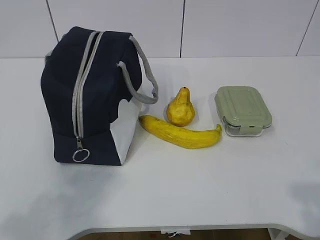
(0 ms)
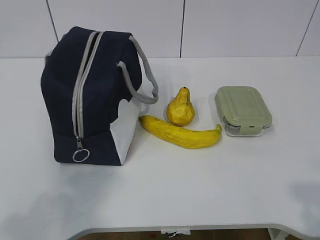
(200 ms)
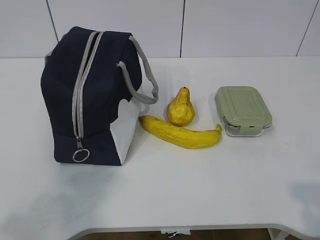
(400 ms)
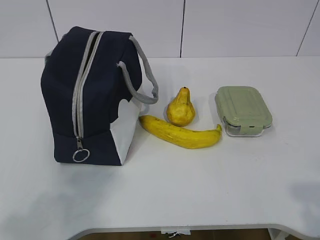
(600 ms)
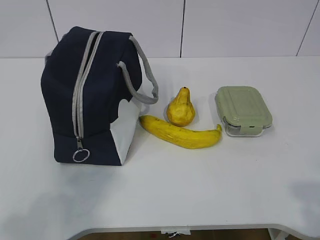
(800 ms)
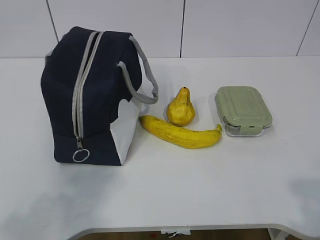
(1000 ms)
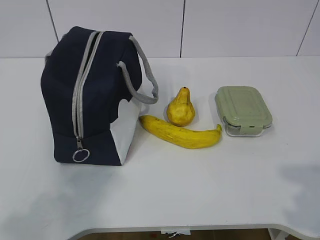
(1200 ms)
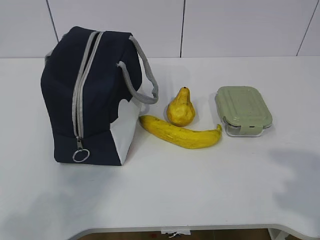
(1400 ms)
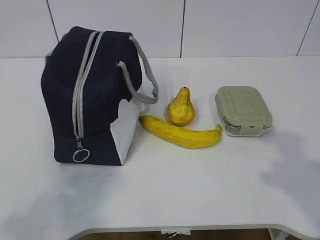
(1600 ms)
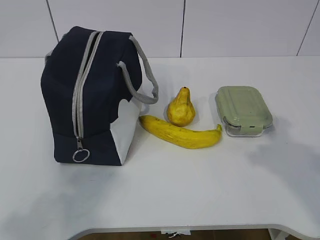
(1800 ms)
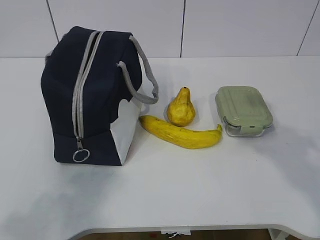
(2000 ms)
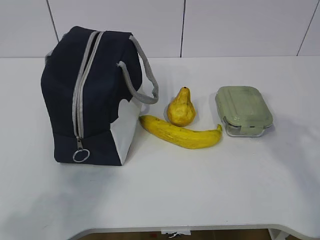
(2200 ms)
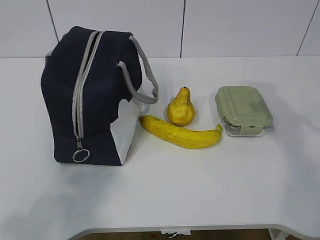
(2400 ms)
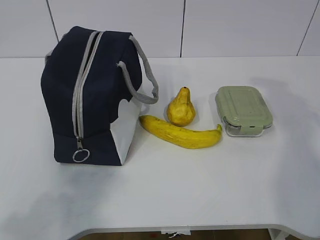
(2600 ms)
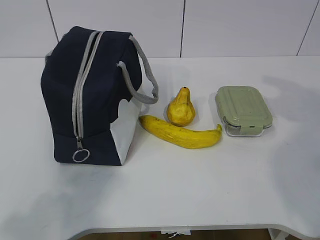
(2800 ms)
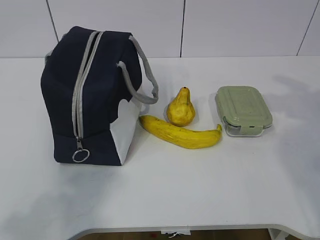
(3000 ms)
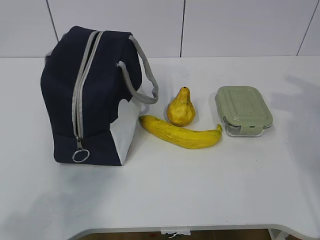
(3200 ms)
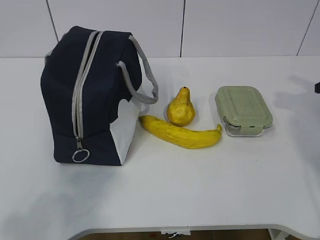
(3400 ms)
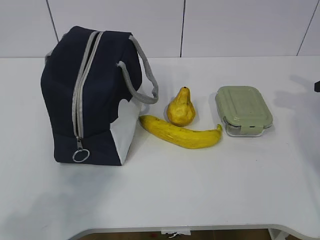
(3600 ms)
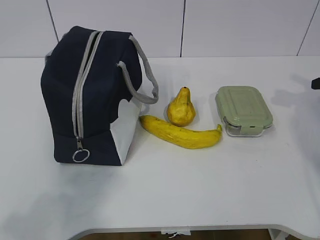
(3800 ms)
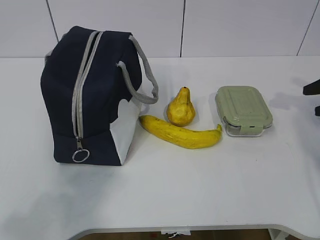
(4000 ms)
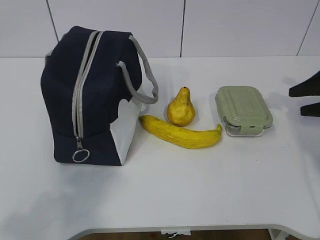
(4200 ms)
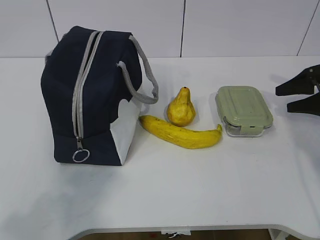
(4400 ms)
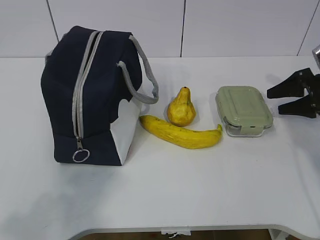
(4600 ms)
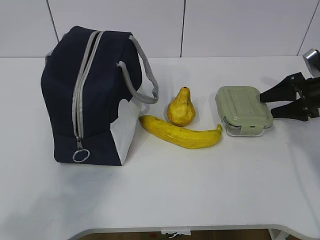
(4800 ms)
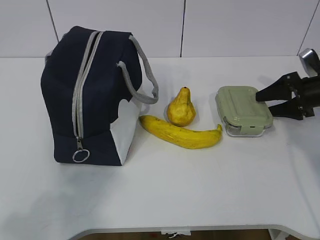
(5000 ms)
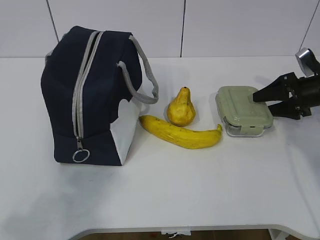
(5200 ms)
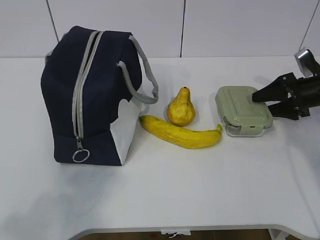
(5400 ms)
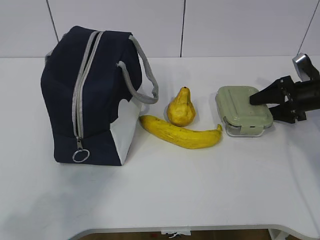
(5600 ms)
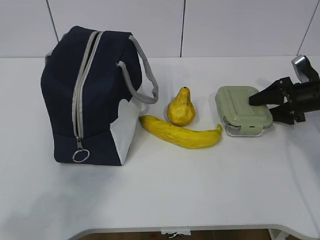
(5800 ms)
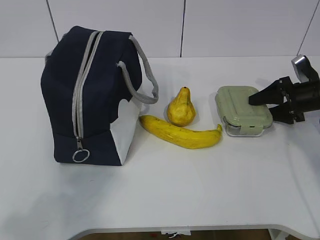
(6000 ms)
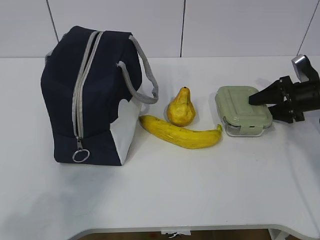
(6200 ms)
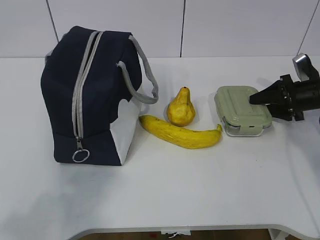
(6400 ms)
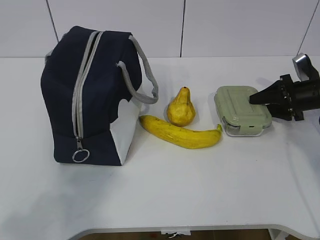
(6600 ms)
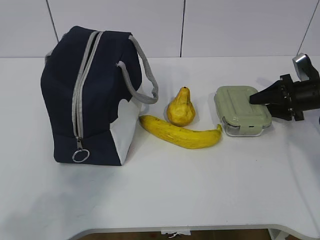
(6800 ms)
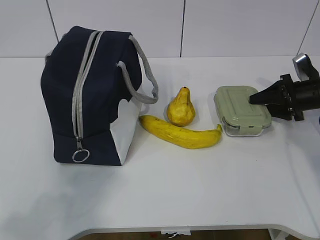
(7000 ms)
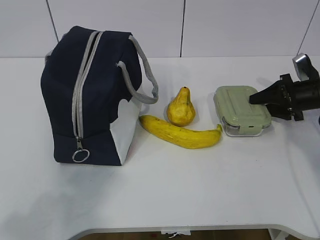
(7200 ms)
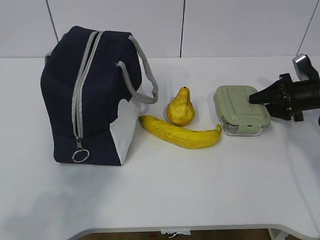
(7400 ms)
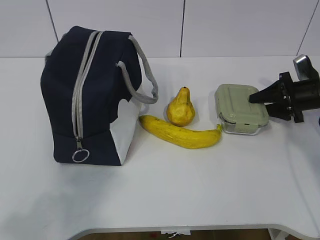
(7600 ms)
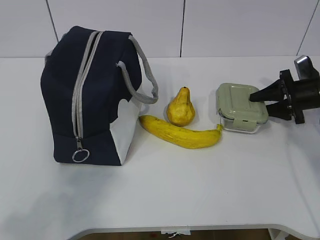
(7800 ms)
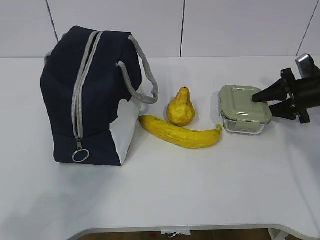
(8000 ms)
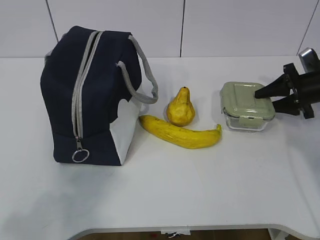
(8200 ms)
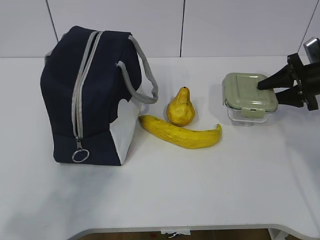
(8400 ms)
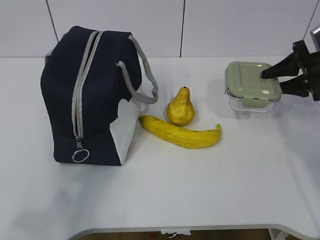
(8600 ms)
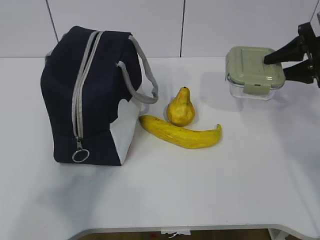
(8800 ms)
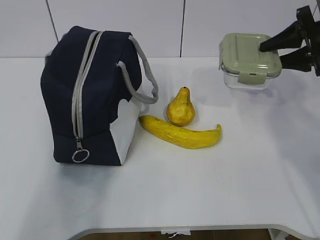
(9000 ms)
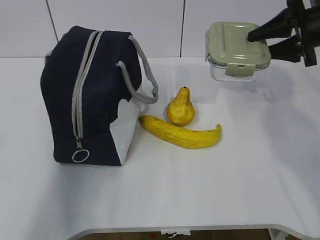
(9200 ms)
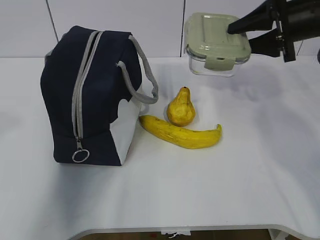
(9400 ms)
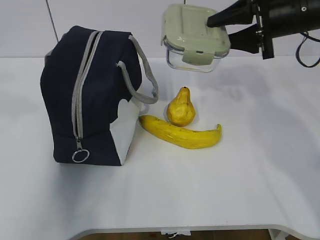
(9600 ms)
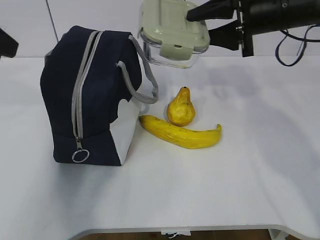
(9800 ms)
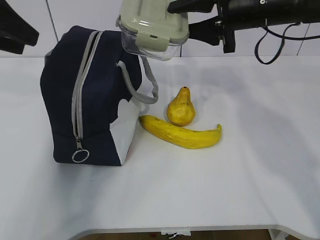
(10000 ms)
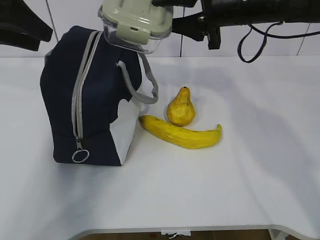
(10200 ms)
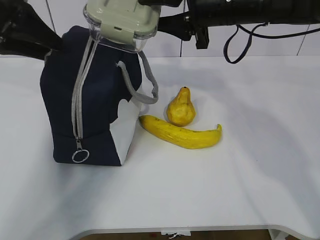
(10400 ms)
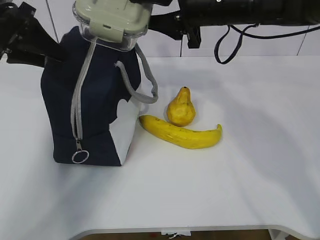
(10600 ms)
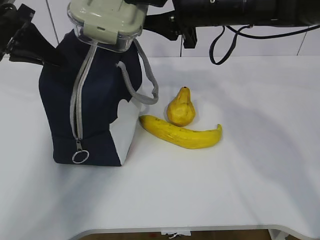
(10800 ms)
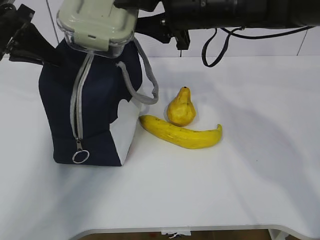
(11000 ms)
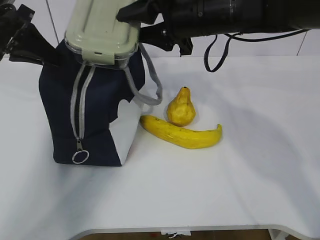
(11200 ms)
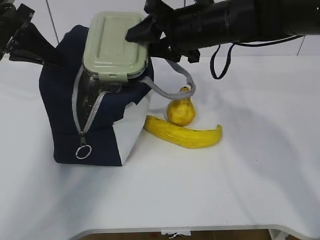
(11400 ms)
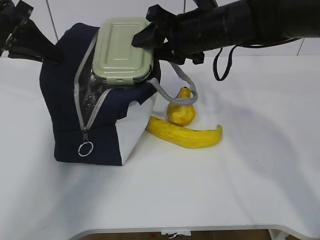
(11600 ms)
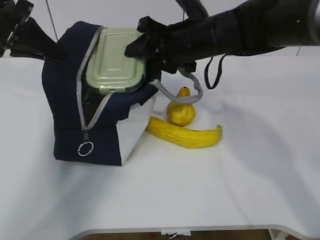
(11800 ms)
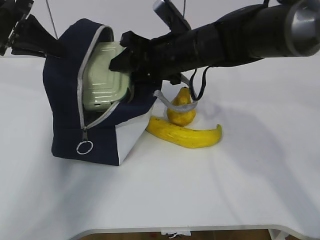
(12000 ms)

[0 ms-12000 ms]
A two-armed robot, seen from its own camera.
Step, 0 ms to 6000 ms: Grab the lunch box with your right hand.
Step, 6200 ms to 9200 ms: Grab the lunch bag with your left hand.
Step, 9400 ms to 11400 ms: Place it into the bag with your right hand.
3000 ms to 4400 ms: The right gripper travels downward and forward by about 15 cm.
4400 ms to 6000 ms: The right gripper shifts by approximately 5 cm.
6000 ms to 7600 ms: There are only small adjustments of the grippers.
7600 ms to 9000 ms: The left gripper goes approximately 10 cm upward and forward; the right gripper shifts about 15 cm upward.
9000 ms to 10400 ms: The left gripper shifts roughly 30 cm forward. Meanwhile the right gripper heads to the left, covering some 20 cm.
10400 ms to 12000 ms: The left gripper closes. Meanwhile the right gripper goes about 10 cm downward and to the left.

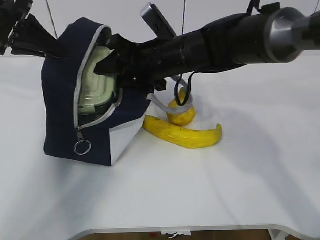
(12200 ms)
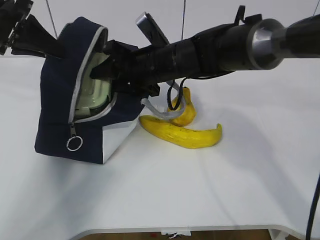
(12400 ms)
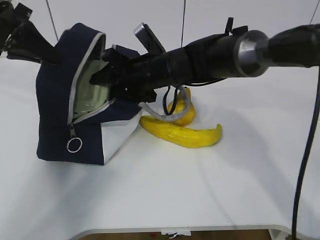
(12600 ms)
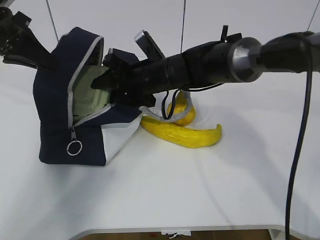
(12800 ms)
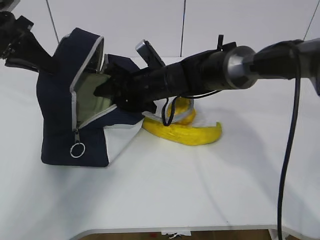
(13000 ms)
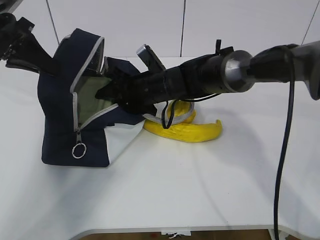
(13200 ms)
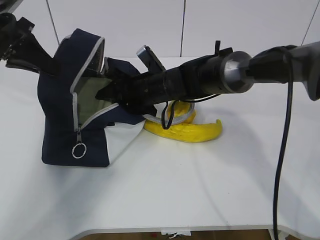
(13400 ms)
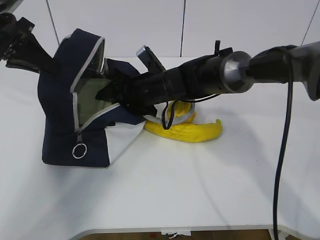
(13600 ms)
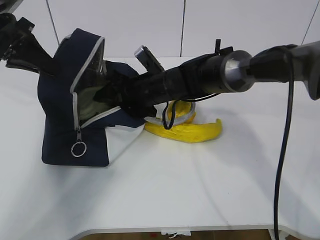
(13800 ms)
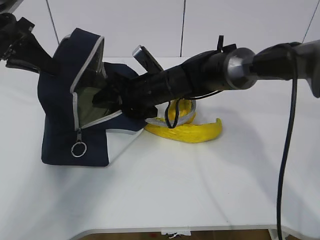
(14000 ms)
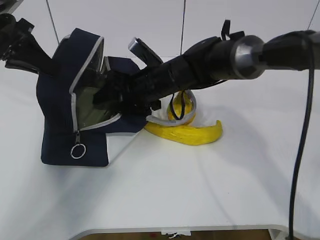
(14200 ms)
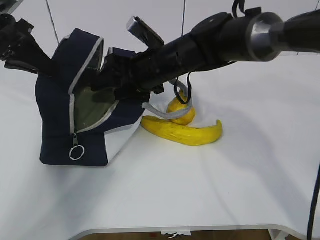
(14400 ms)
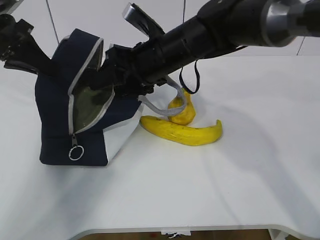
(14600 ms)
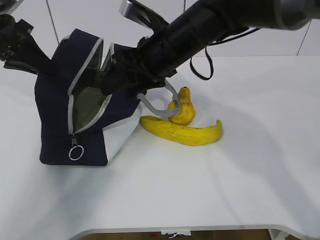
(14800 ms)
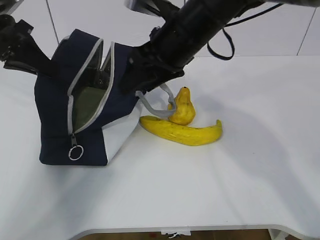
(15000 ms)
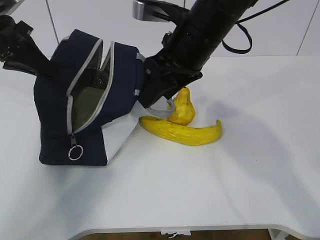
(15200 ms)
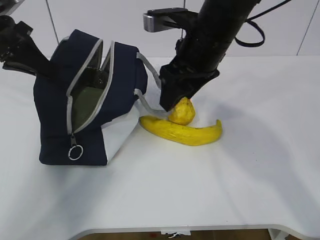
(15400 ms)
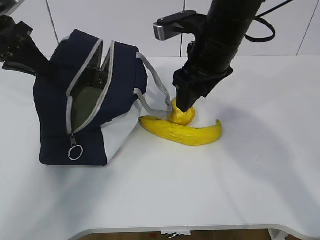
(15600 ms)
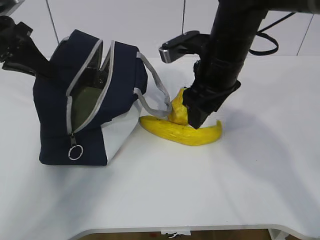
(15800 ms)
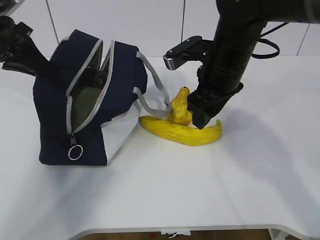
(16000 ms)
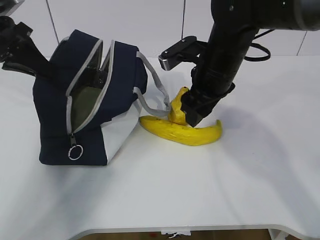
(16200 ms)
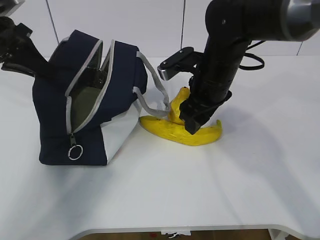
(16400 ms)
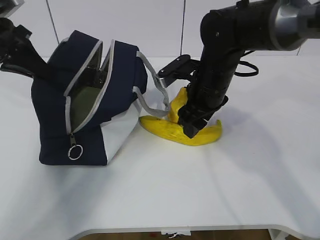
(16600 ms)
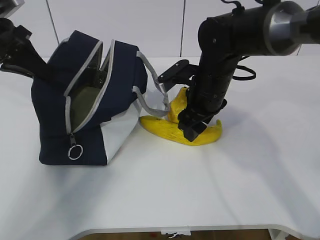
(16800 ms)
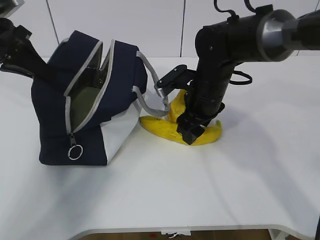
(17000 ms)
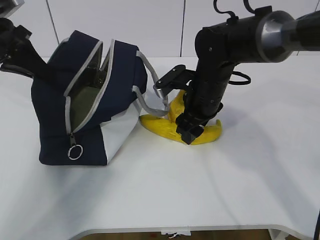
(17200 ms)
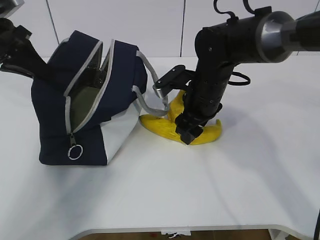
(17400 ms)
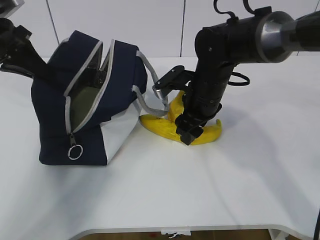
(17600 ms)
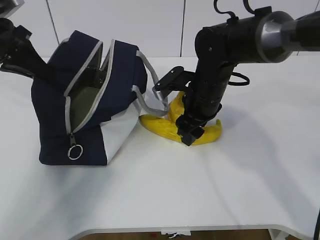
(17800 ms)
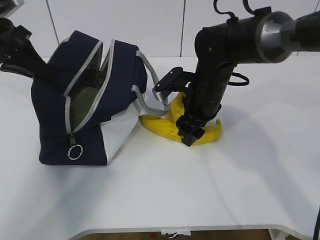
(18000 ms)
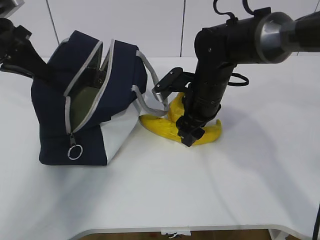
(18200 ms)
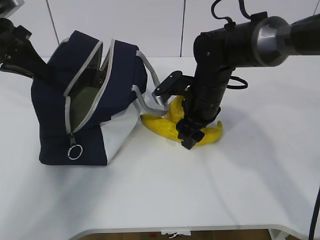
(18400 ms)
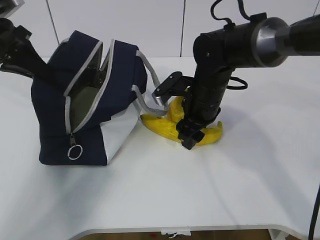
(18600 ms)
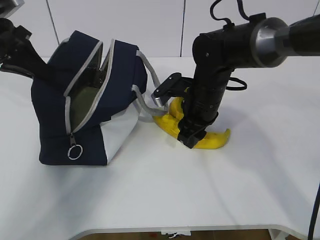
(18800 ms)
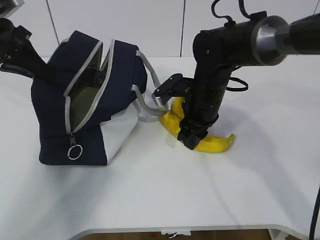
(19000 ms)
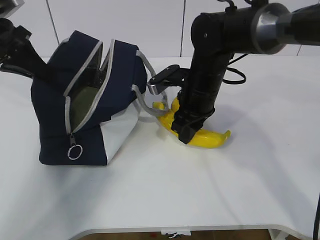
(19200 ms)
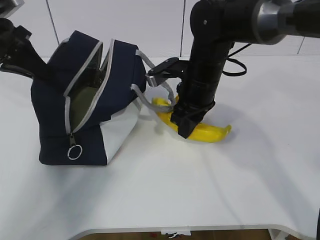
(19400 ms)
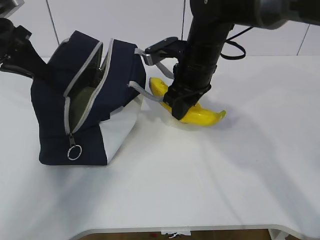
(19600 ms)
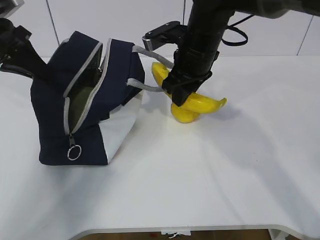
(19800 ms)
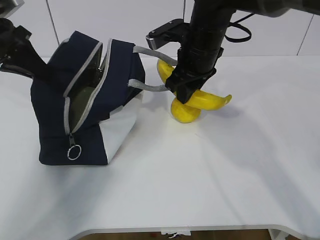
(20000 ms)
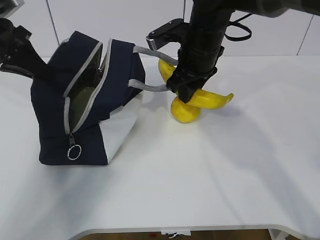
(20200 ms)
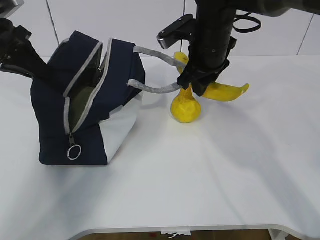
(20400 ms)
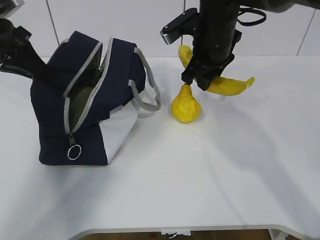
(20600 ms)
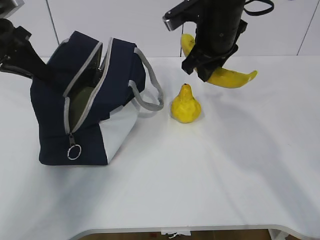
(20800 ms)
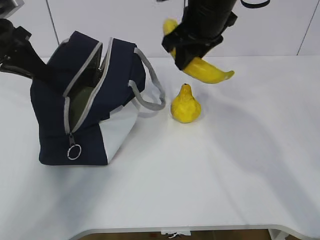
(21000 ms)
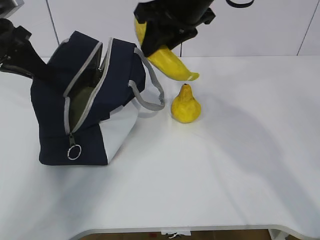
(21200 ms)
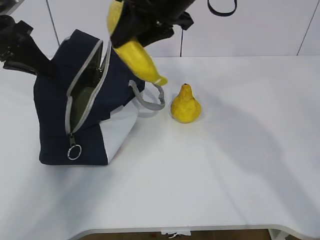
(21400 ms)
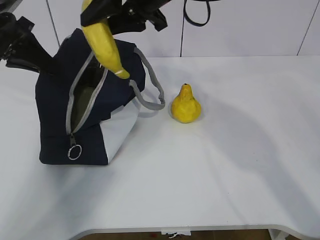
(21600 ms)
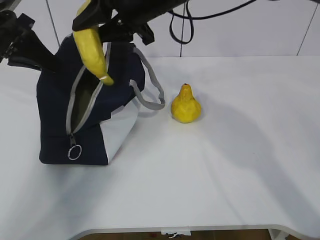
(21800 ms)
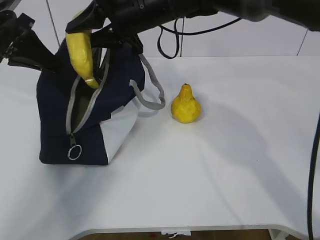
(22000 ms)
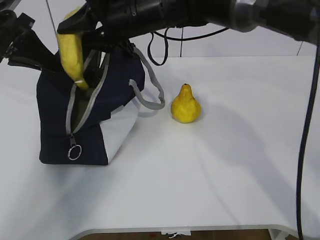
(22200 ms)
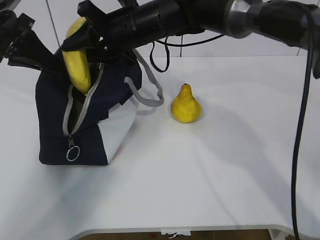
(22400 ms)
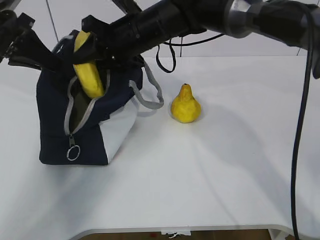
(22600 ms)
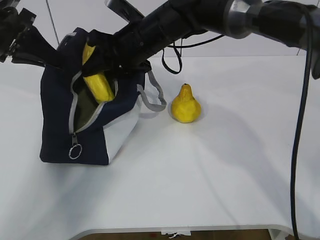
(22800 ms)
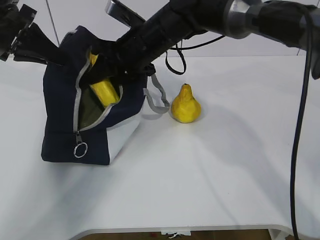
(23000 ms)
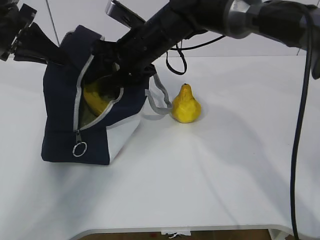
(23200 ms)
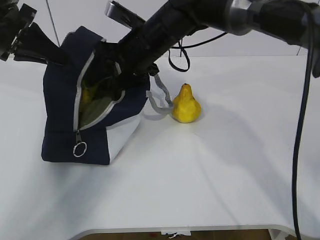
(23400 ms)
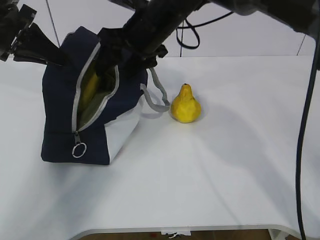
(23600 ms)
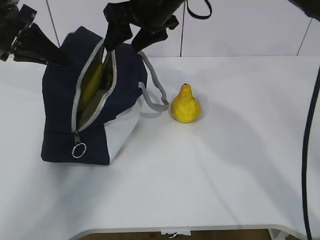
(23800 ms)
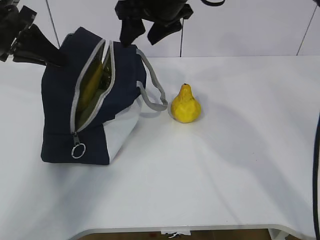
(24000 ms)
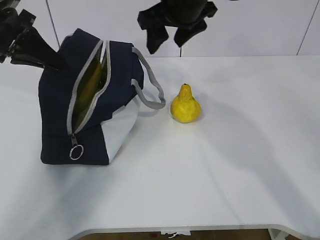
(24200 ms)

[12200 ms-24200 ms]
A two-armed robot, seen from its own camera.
Step, 12200 ms to 15600 ms: Grab the banana with your right hand.
Step, 15800 ms to 19400 ms: Place it into the bag with your right hand.
Step, 19600 ms to 22200 ms: Grab the pear with your right hand.
12200 ms to 13800 ms: The right gripper moves downward, approximately 10 cm.
13800 ms to 15200 ms: The right gripper moves upward, backward and to the right, some 15 cm.
15200 ms to 16600 ms: The right gripper travels downward by about 10 cm.
16600 ms to 18200 ms: The grippers move only a little.
18200 ms to 19800 ms: The right gripper heads upward, covering approximately 10 cm, and closes its fingers.
19800 ms to 21200 ms: The right gripper travels upward by some 10 cm.
21200 ms to 22600 ms: The right gripper heads downward and to the left, covering about 10 cm.
22600 ms to 24200 ms: The right gripper travels to the right and upward by about 10 cm, and opens up.
